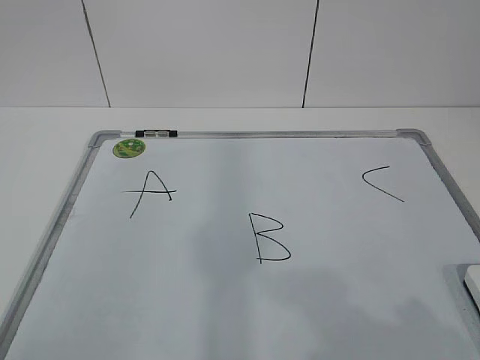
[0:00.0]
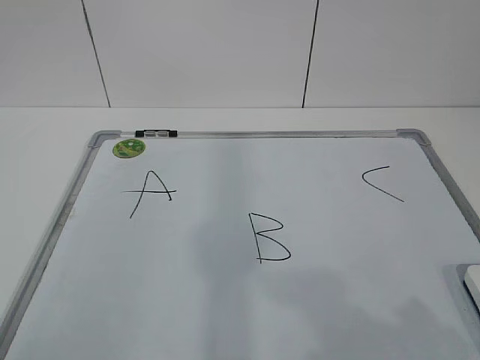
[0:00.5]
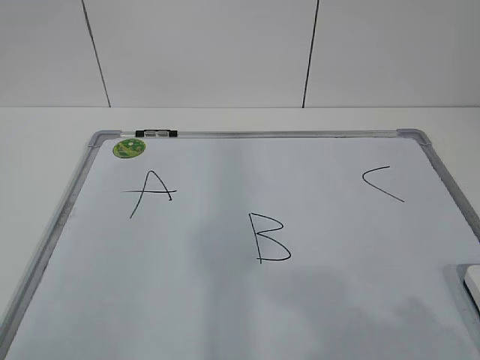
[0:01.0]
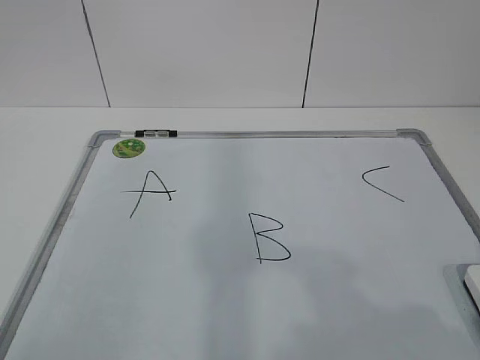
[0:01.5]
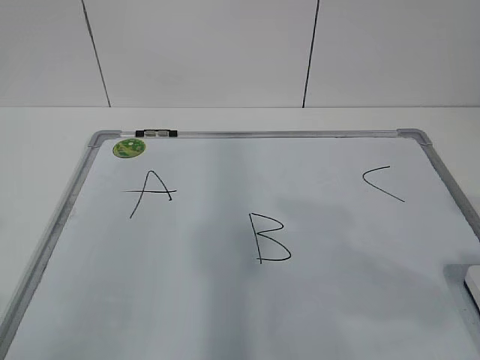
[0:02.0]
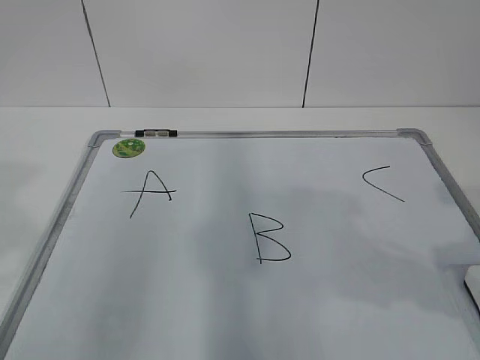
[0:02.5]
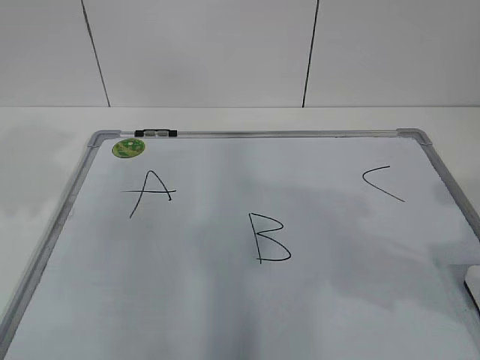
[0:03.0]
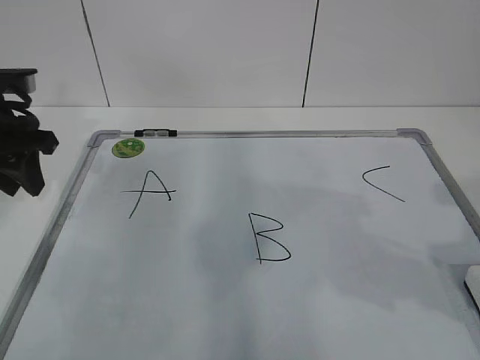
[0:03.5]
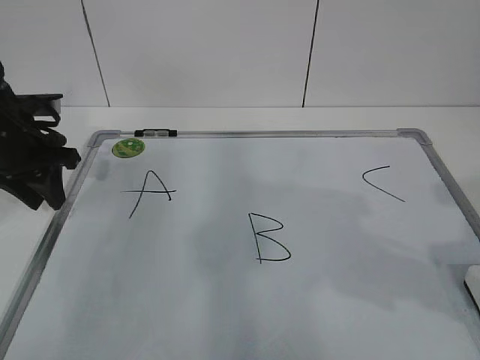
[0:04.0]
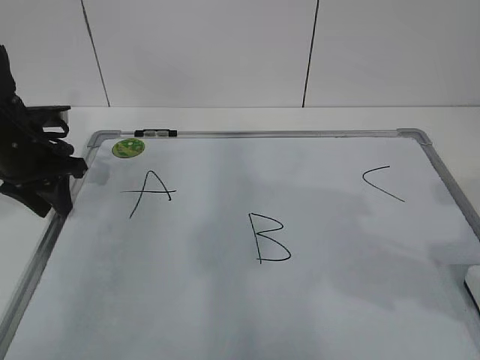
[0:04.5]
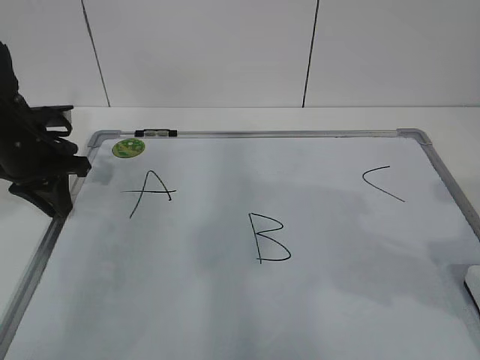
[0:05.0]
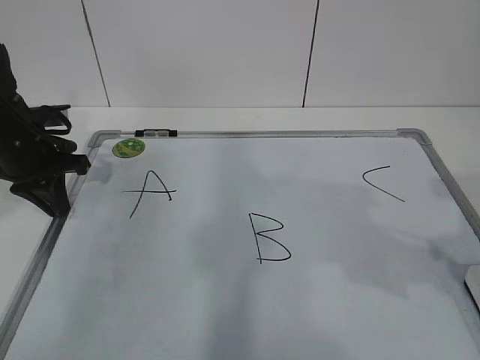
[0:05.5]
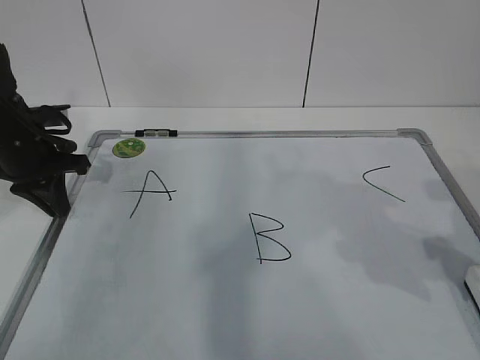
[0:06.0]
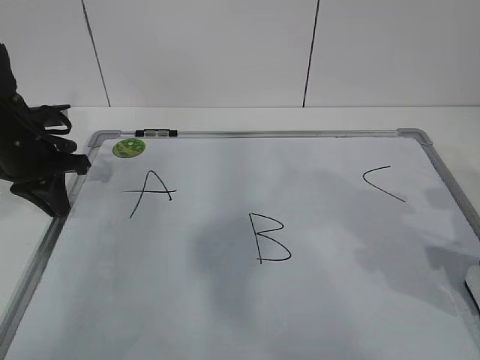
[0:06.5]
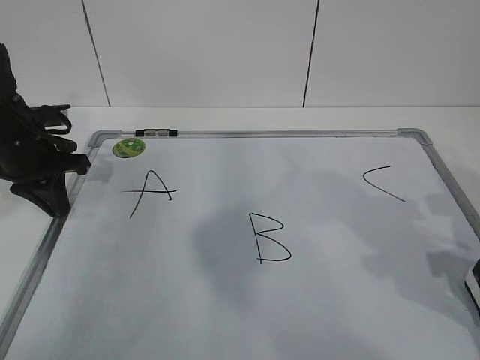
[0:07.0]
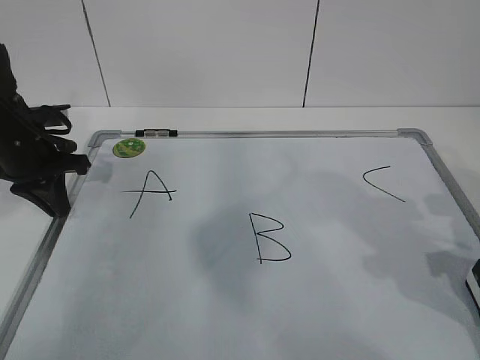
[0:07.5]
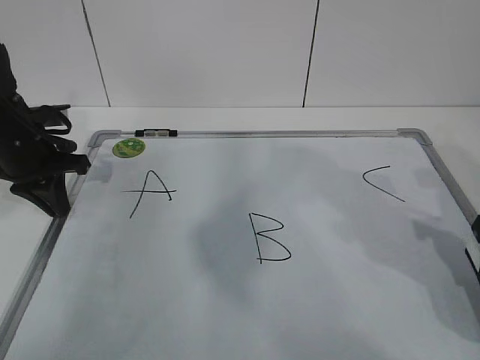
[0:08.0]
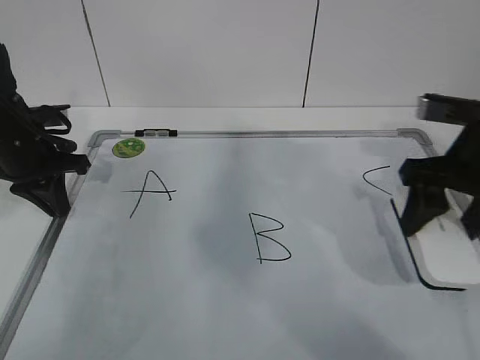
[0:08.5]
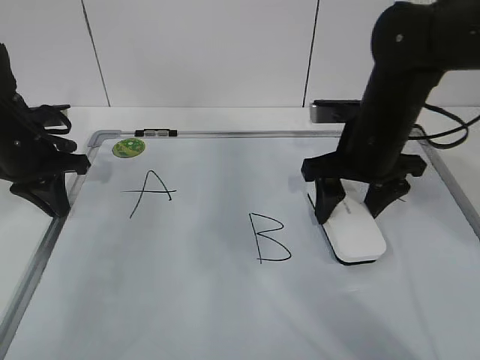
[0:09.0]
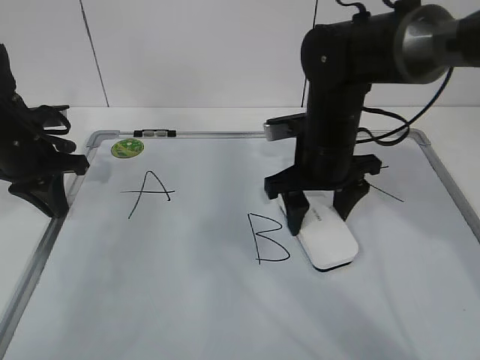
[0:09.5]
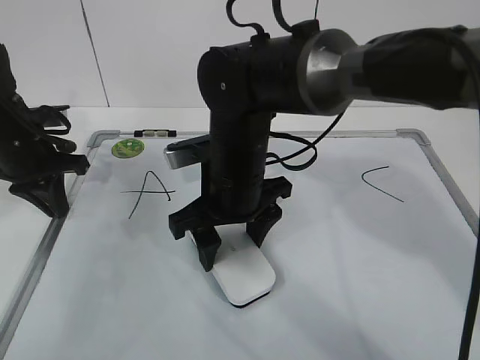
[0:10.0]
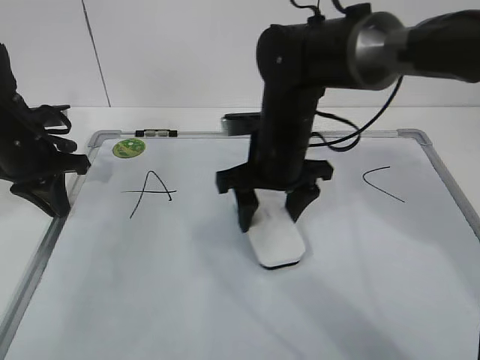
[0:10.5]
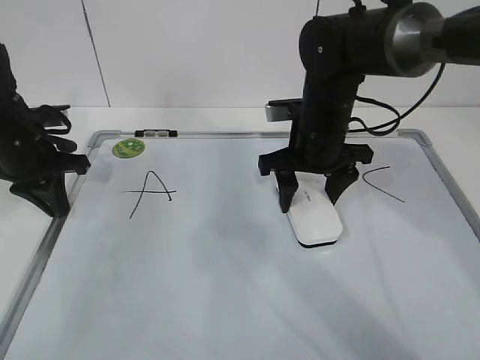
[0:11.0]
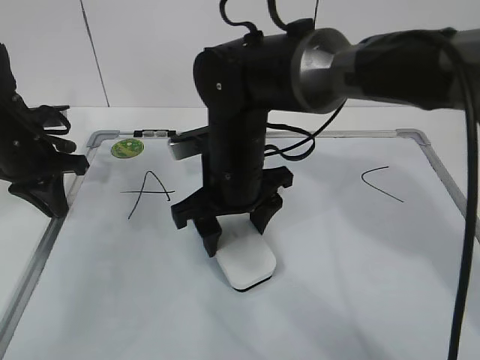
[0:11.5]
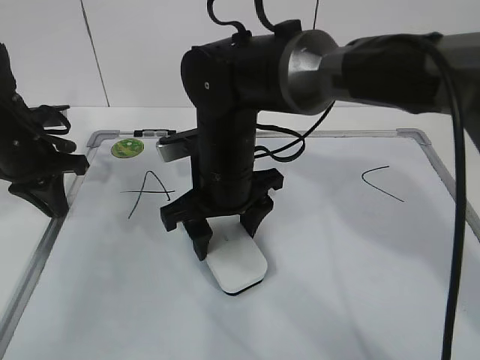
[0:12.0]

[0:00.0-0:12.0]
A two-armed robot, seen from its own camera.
Task of the whole recording: pick up the eraser on the blackboard and erase the letter "B".
Step, 0:00.0 to 0:04.0: Hold the drawing board steady with your left hand.
Step, 0:04.5 to 0:05.5: Grab the eraser with your right hand.
Step, 0:06.0 to 0:09.5: Erase the letter B with your right hand.
0:02.0 to 0:04.0: The left gripper heads forward, covering approximately 35 cm.
0:04.0 to 0:06.0: The left gripper closes its fingers.
0:06.0 to 0:08.0: The right gripper closes up.
0:08.0 to 0:10.0: The right gripper heads to the left, covering about 30 cm.
0:10.0 to 0:12.0: The right gripper travels to the right and back again, approximately 10 cm each way.

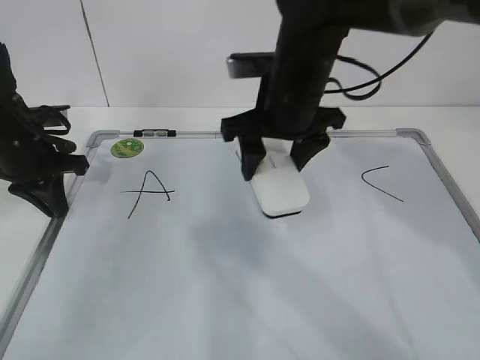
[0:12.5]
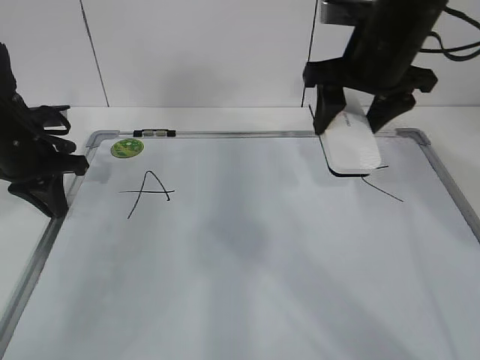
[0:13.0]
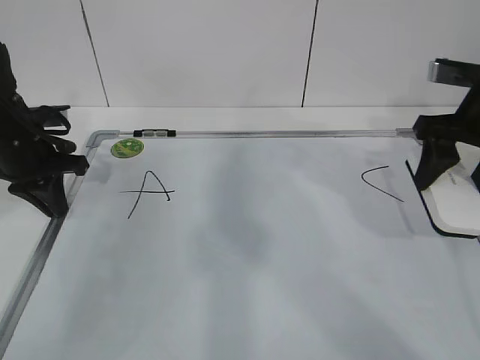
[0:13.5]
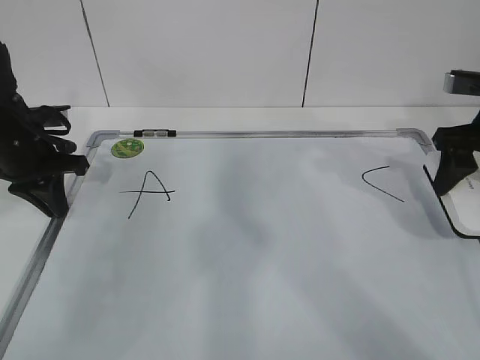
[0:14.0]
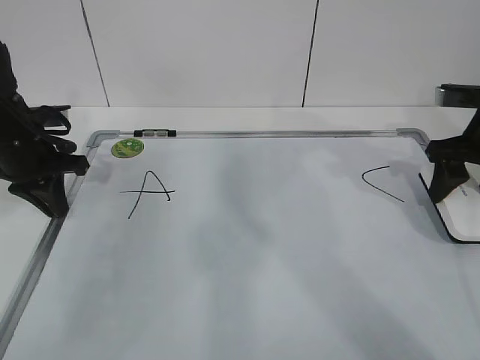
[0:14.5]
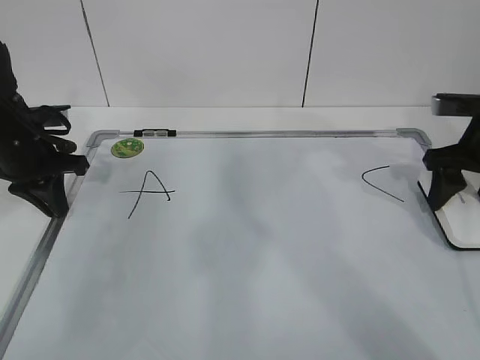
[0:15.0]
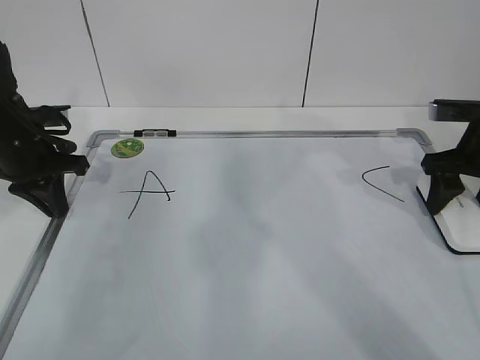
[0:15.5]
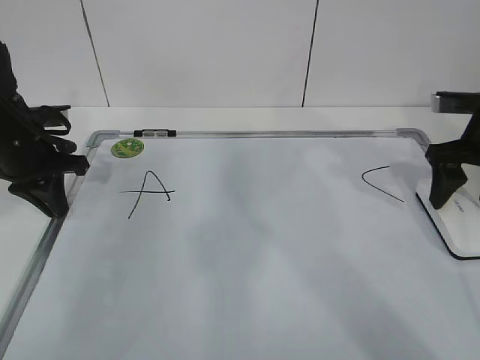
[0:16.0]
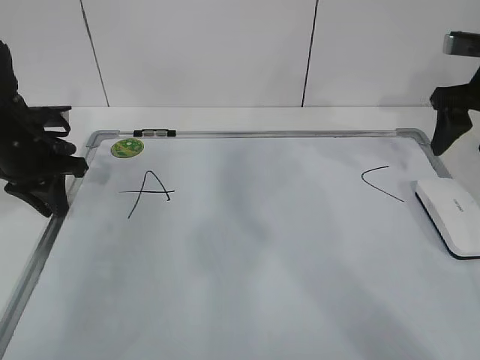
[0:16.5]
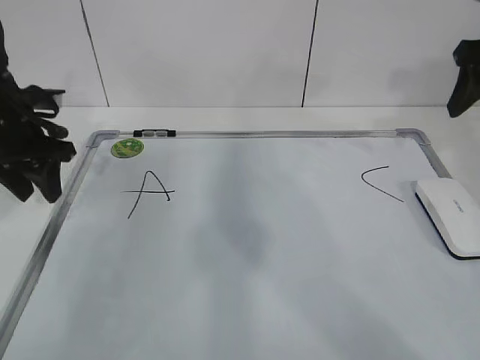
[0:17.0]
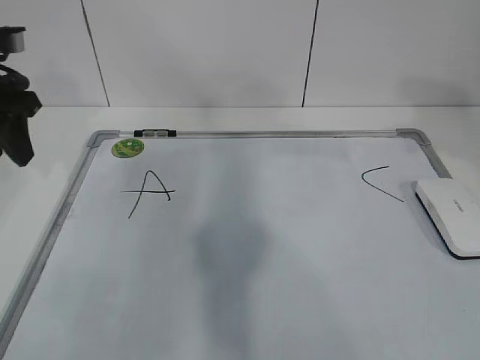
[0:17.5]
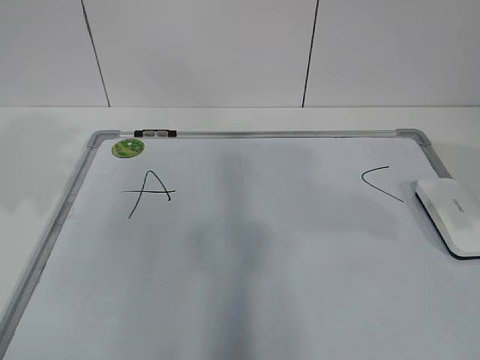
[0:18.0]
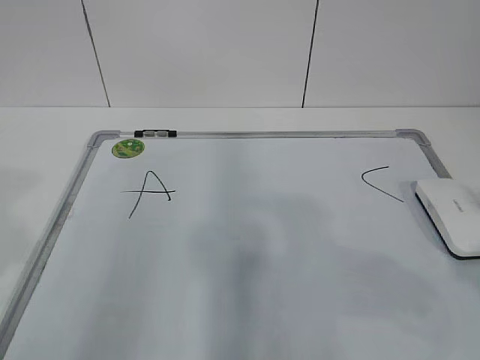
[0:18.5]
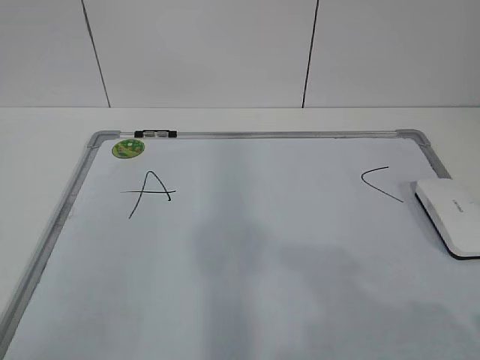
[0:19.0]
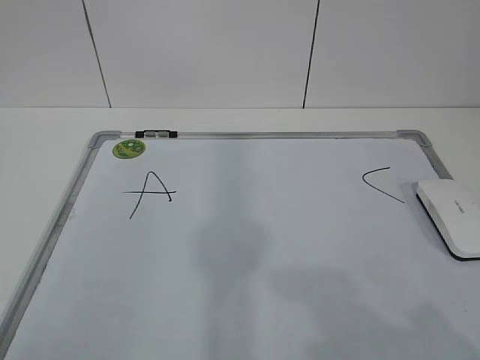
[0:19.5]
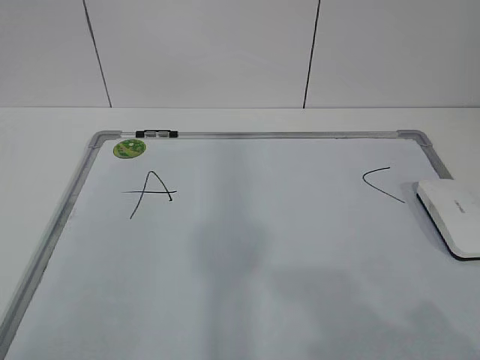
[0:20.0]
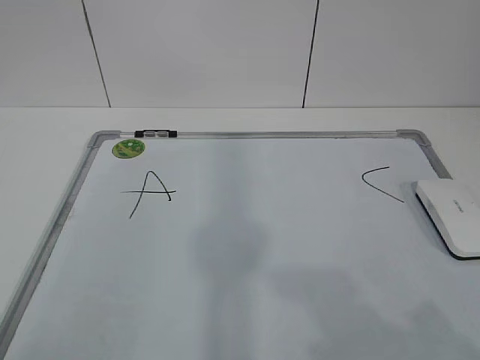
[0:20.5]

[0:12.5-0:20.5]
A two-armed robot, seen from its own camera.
Task of the whole recording: pick up the eraser on the blackboard and erase the letter "B".
0:12.5 to 0:14.5: The right gripper travels to the right by roughly 25 cm.
0:14.5 to 0:16.5: The right gripper travels upward by approximately 5 cm, and opens.
0:16.5 to 0:18.5: The left gripper is displaced backward and upward by some 30 cm, and opens its fingers. The right gripper moves backward, about 30 cm.
0:18.5 to 0:20.5: The right gripper moves backward, roughly 5 cm.

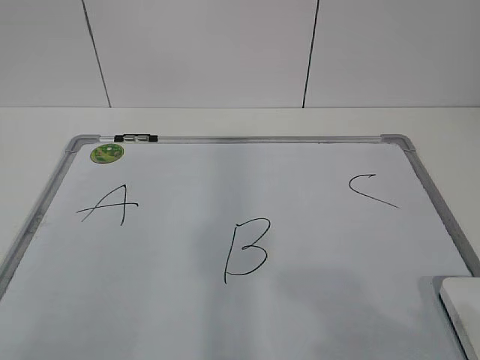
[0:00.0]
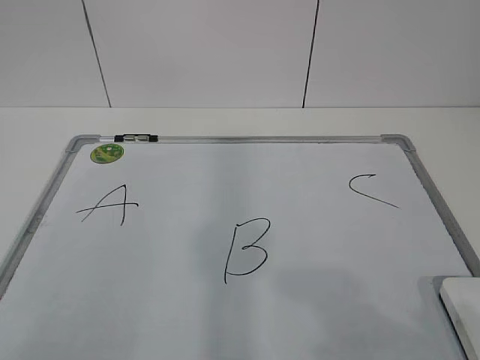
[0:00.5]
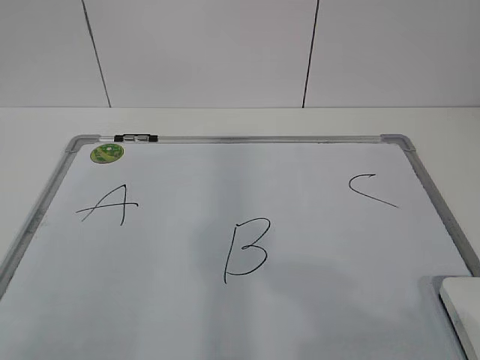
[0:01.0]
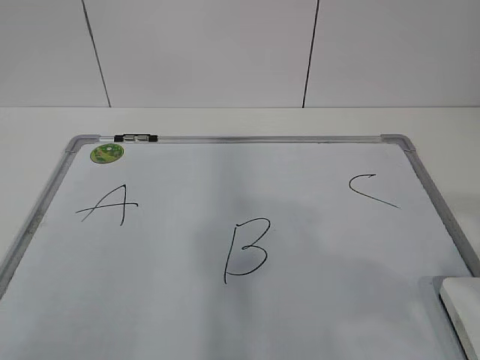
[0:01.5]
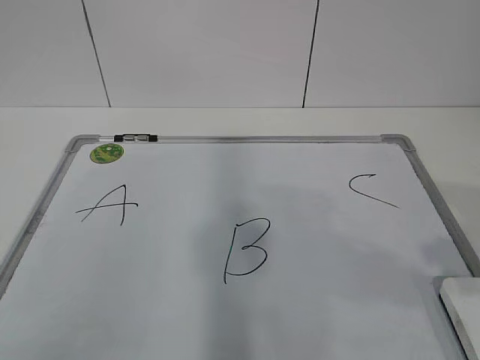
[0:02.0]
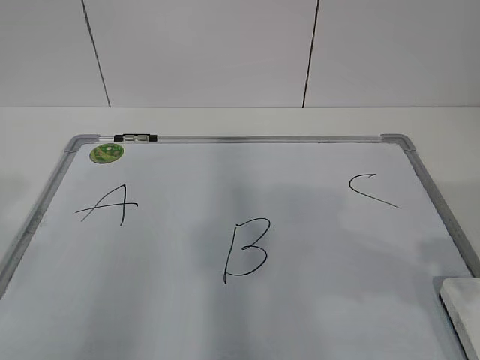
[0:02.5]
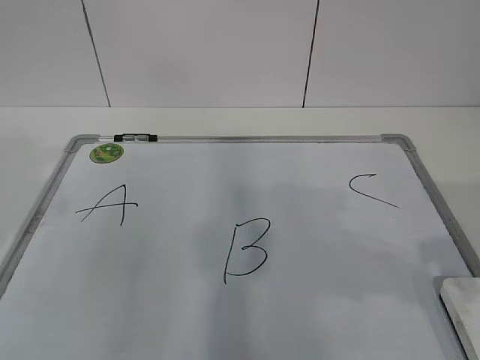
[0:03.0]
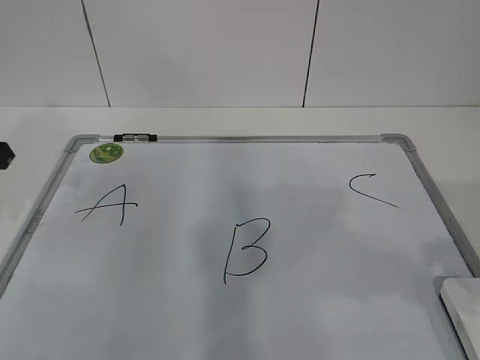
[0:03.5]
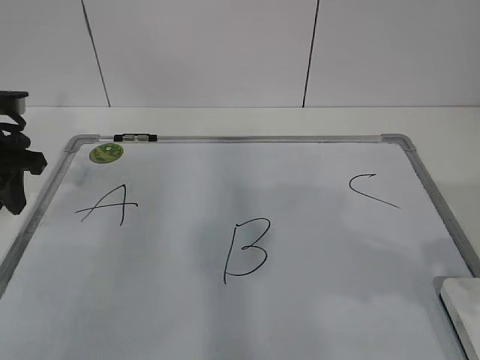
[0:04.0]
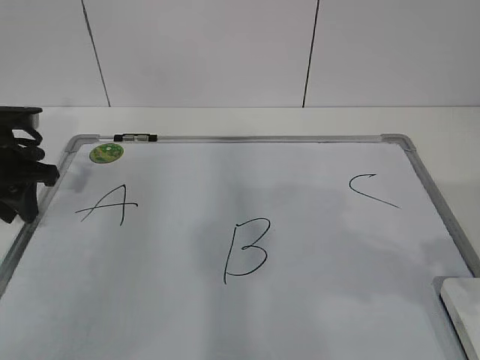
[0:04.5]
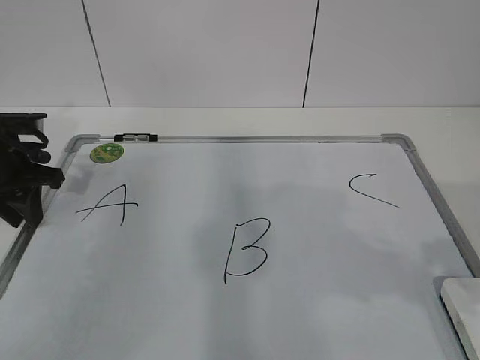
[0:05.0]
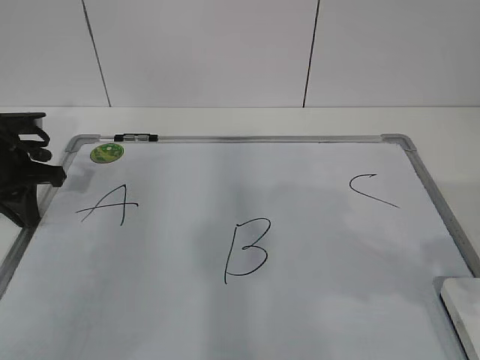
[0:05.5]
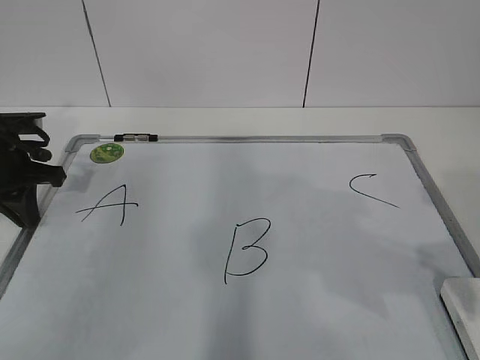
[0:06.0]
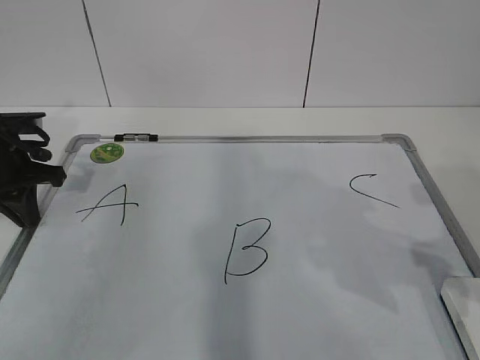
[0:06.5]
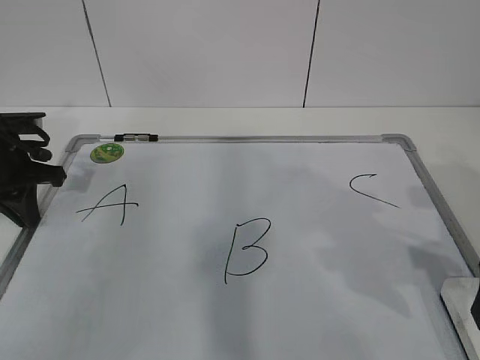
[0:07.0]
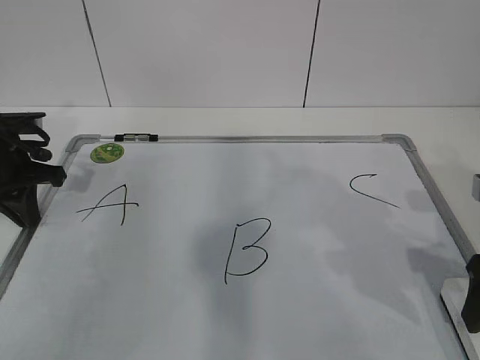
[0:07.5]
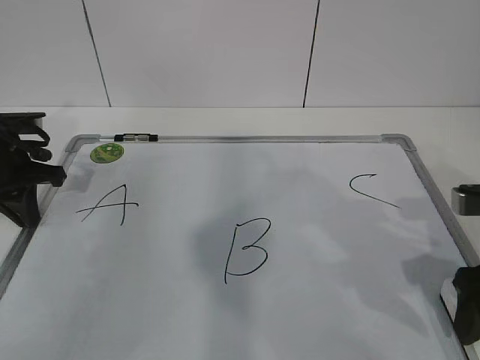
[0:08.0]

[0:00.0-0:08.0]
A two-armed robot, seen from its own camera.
Task of the whole recording: pick up the eraser on the blackboard and erase the letter "B".
Step, 0:00.0 to 0:04.0: Hold the drawing board steady with your left hand.
Step, 0:04.5 to 0:07.0: Grab the eraser with your right hand.
0:02.0 to 0:04.0: The left gripper shifts about 35 cm forward.
0:04.0 to 0:06.0: The left gripper closes up.
0:06.0 to 0:08.0: The right gripper is displaced downward and forward by approximately 10 cm.
